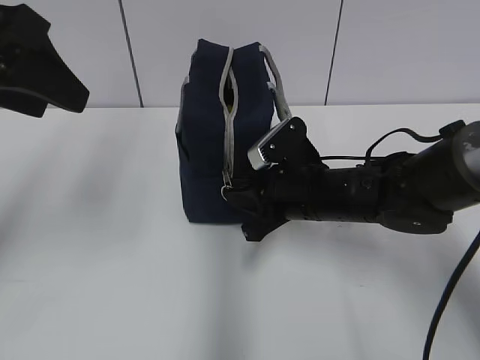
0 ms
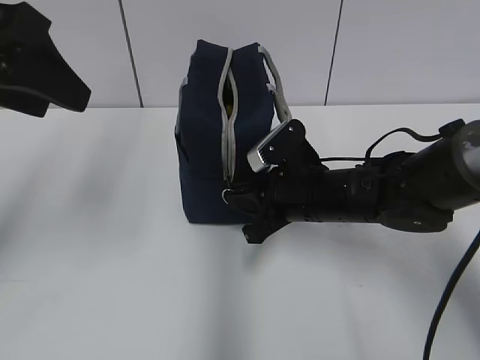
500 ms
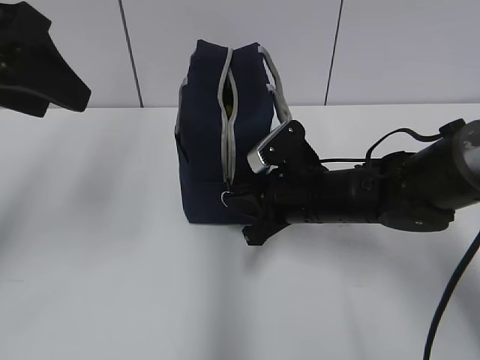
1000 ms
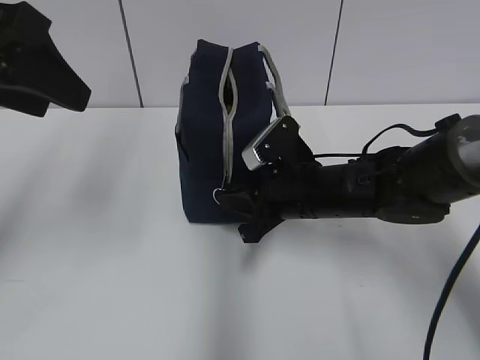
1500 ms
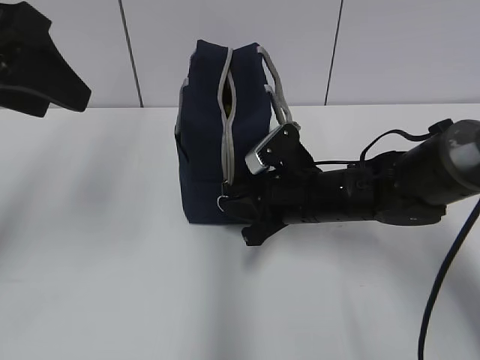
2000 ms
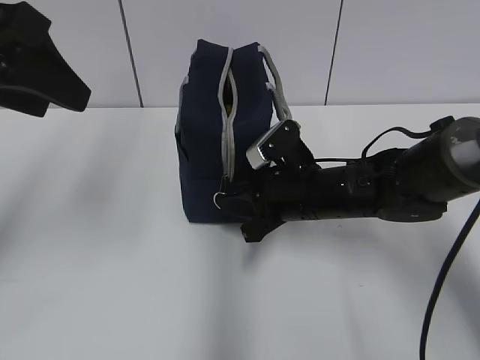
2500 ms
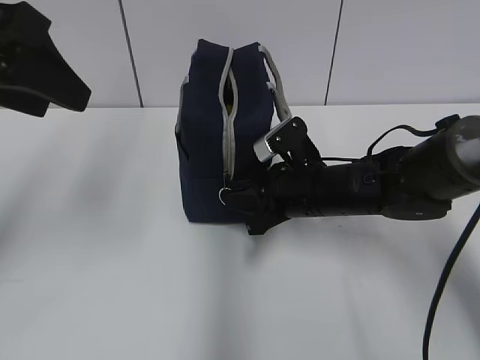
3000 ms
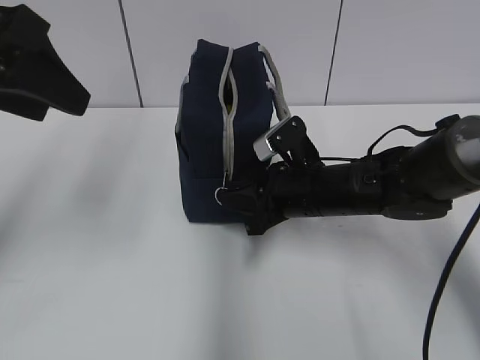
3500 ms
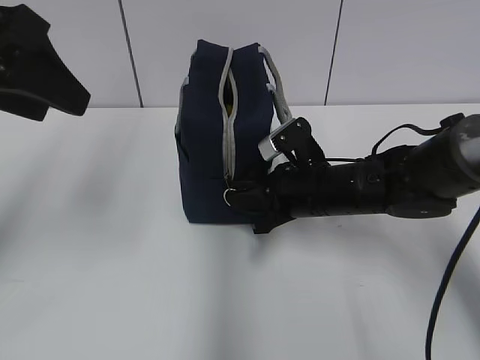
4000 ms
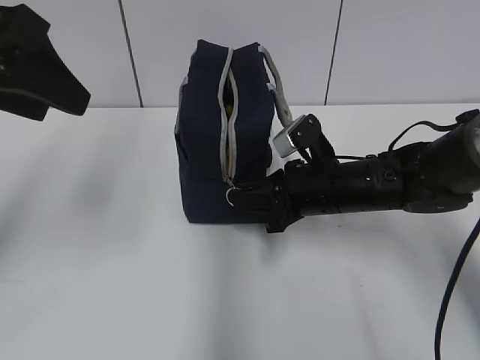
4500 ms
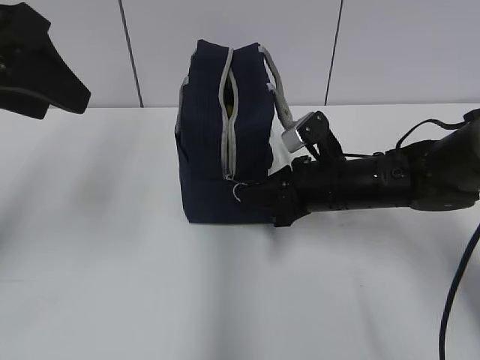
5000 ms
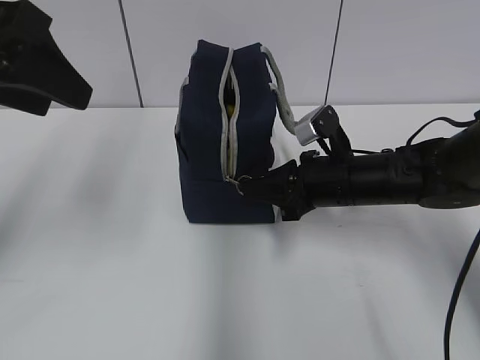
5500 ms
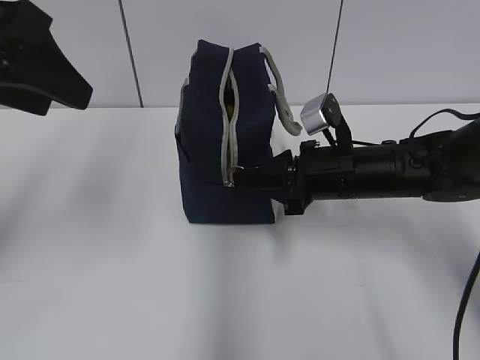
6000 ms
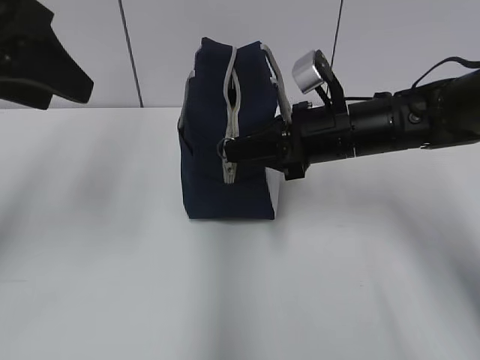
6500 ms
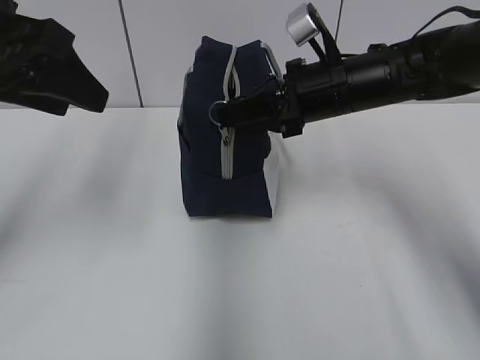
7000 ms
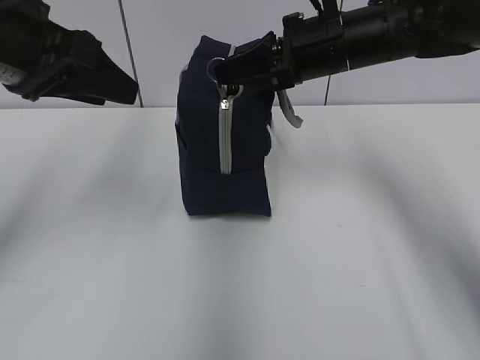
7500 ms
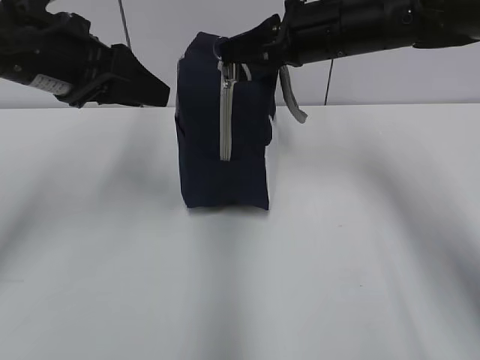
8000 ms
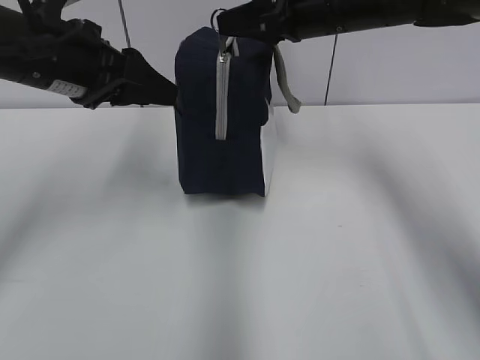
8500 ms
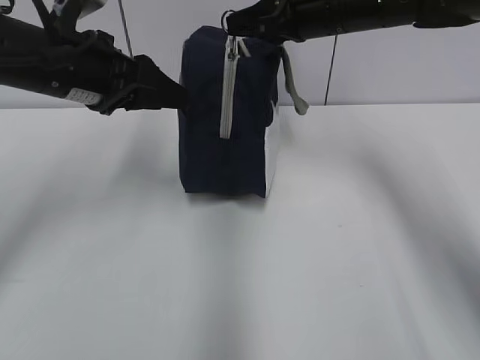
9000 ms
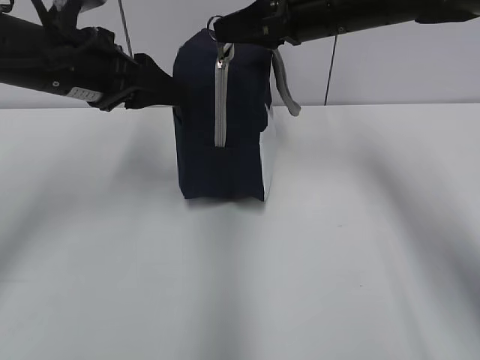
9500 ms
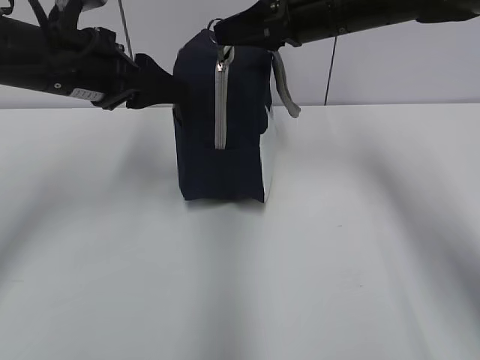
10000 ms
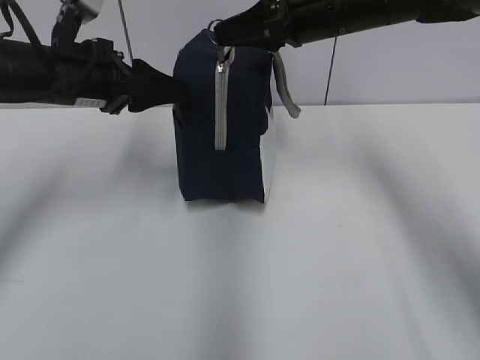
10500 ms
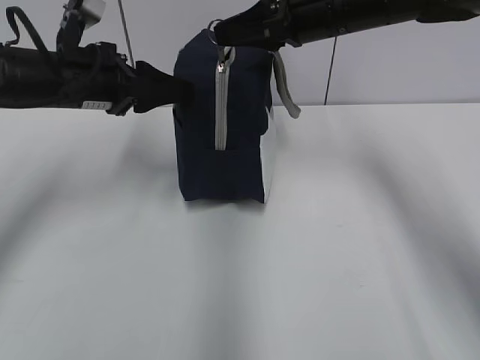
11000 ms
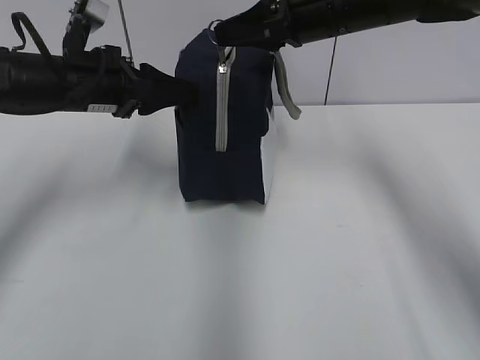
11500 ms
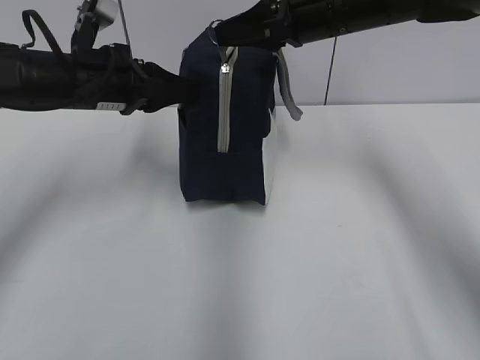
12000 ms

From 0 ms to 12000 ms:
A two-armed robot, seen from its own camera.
From 0 ms to 4000 ms: The grippers stay close to where they were, moving slightly.
From 4000 ms to 6000 ms: The grippers move only a little.
From 6000 ms to 8000 ms: The left gripper moves forward and downward, about 10 cm. The right gripper shifts about 15 cm upward and forward.
From 8000 ms to 10000 ms: The grippers stay close to where they were, moving slightly.
From 10000 ms to 12000 ms: The left gripper closes.

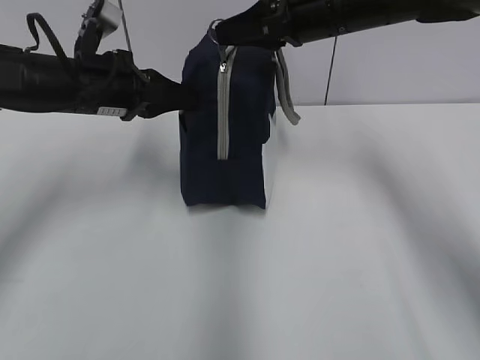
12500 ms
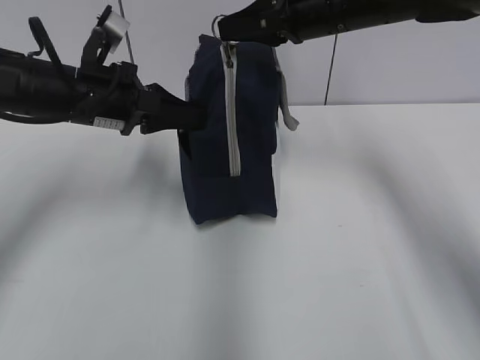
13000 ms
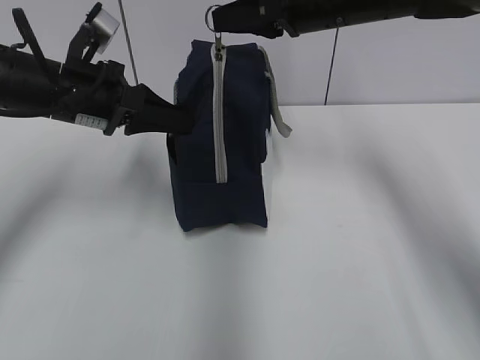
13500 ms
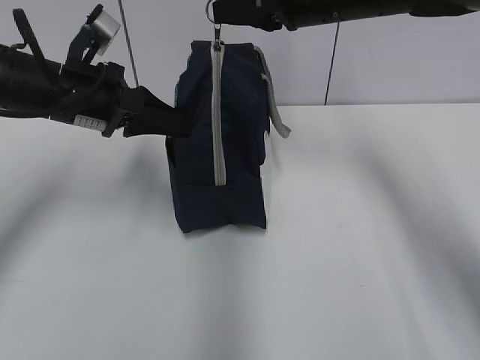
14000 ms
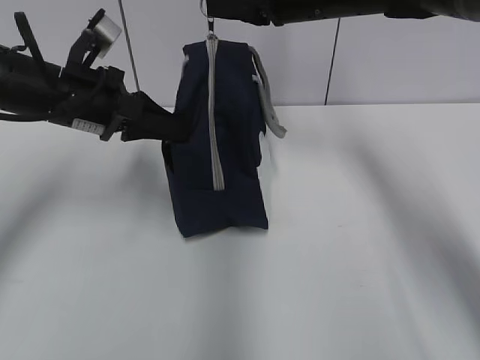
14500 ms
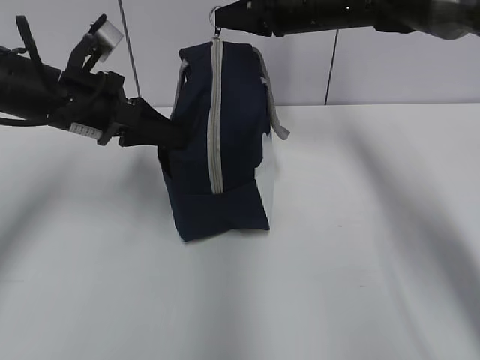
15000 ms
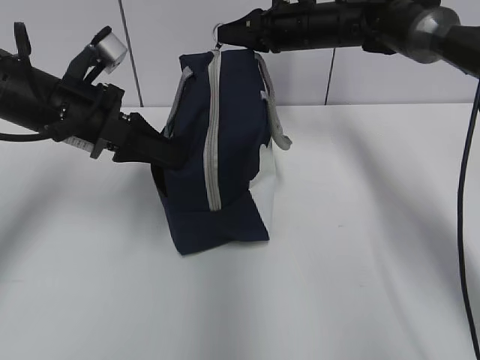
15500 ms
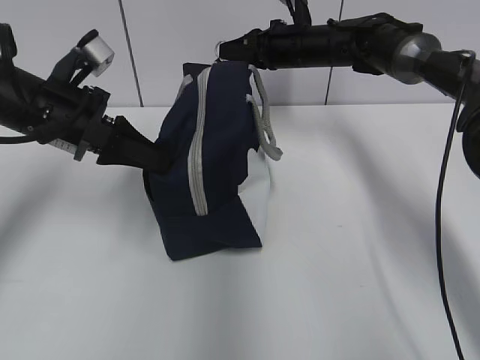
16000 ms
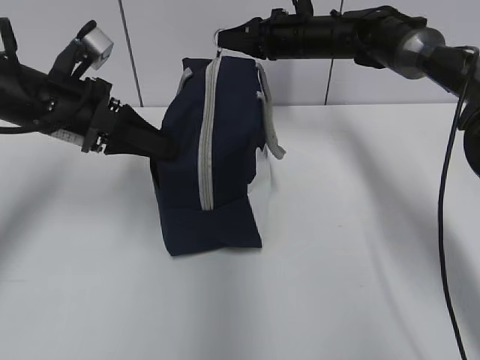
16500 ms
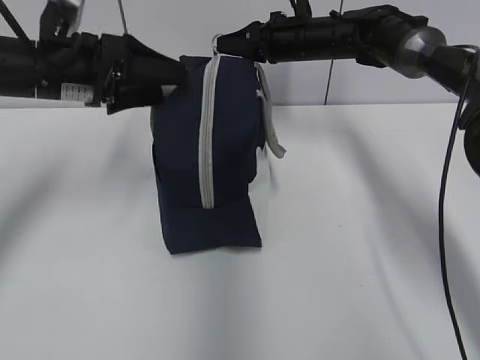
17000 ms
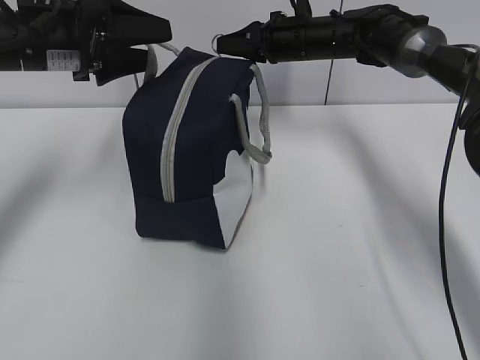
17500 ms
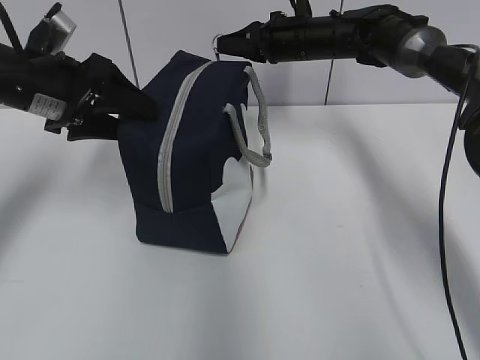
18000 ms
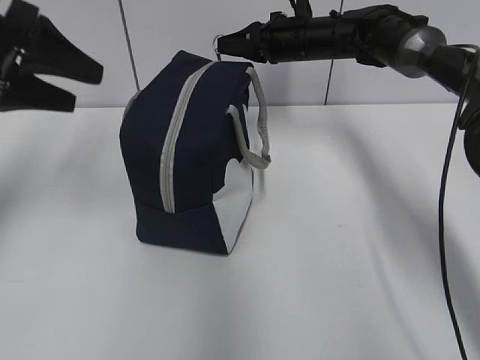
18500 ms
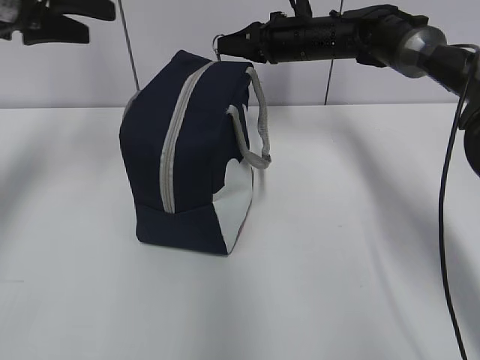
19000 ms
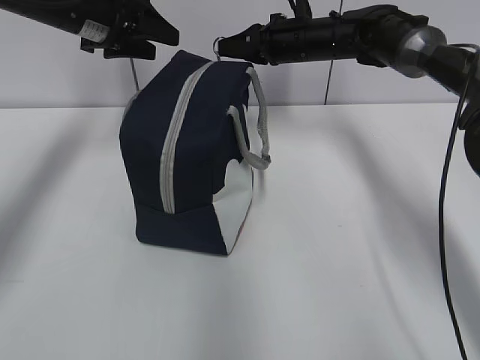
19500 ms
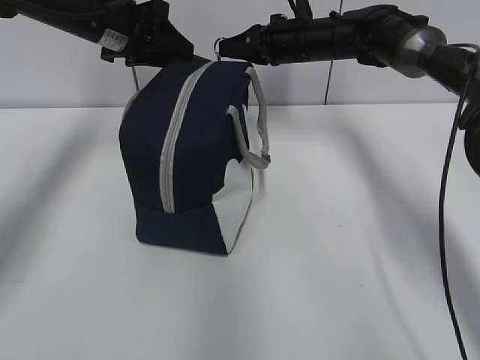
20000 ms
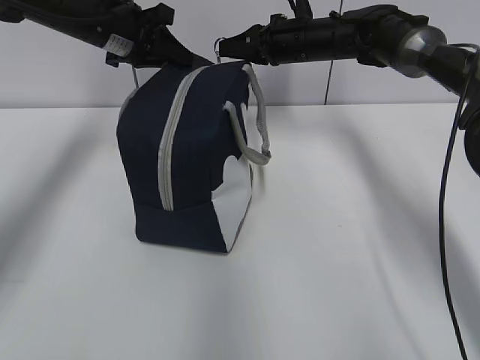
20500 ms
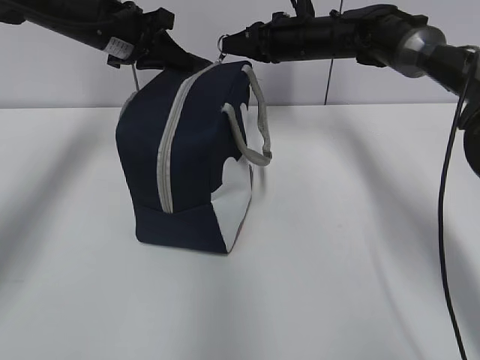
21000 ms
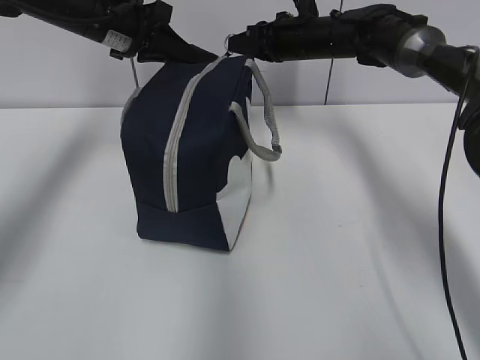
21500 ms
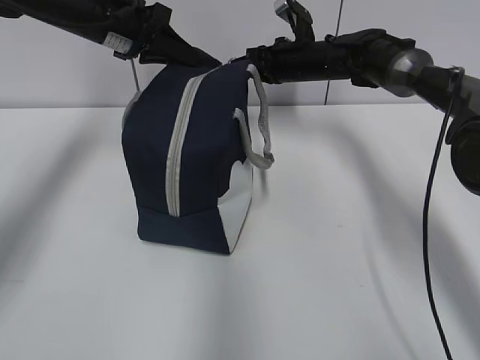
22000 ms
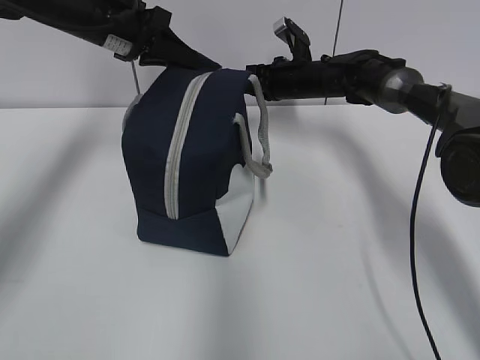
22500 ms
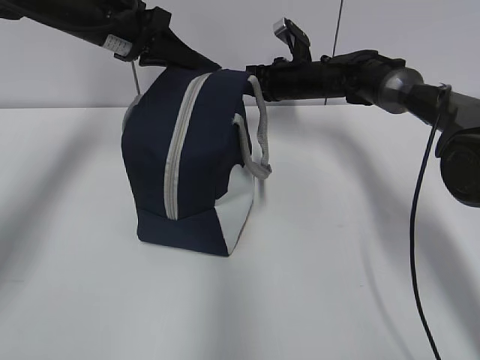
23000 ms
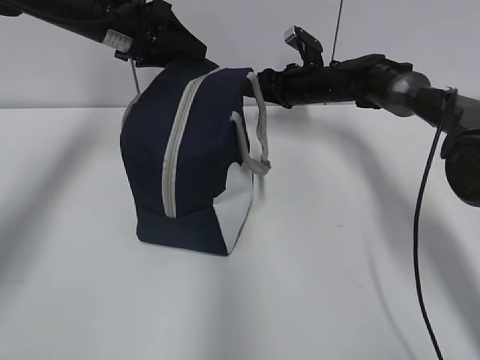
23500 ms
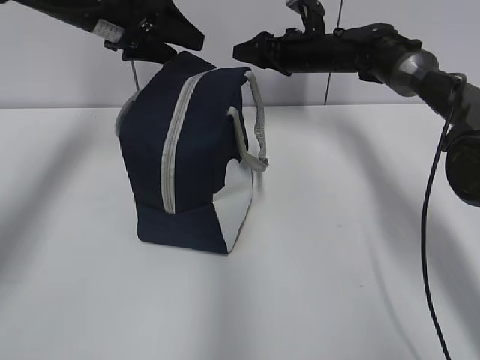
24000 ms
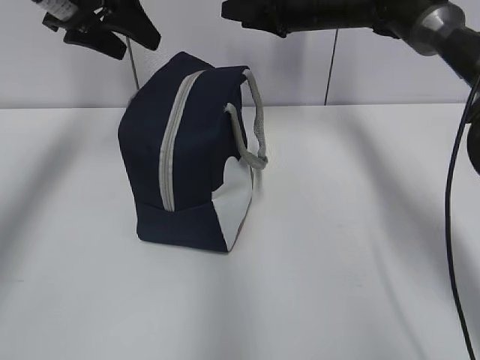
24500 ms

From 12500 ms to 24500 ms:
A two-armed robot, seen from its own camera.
Step, from 12500 ms to 16000 ms: Move the lunch bag to the left.
Step, from 17000 ms to 23000 ms: Pull the zipper with your right hand.
From 12500 ms to 14500 ms: The grippers stay close to where they were, moving slightly.
From 14500 ms to 16500 ms: The right gripper moves downward and forward, about 10 cm.
From 16500 ms to 18500 ms: The left gripper travels upward and to the left by roughly 10 cm, and opens up.
From 18500 ms to 20500 ms: The left gripper goes roughly 20 cm forward and to the right, and closes.
From 20500 ms to 22500 ms: The right gripper goes some 5 cm downward.
From 22500 ms to 24500 ms: The right gripper shifts approximately 10 cm upward, and opens its fingers, while the left gripper moves upward, about 5 cm, and opens its fingers.

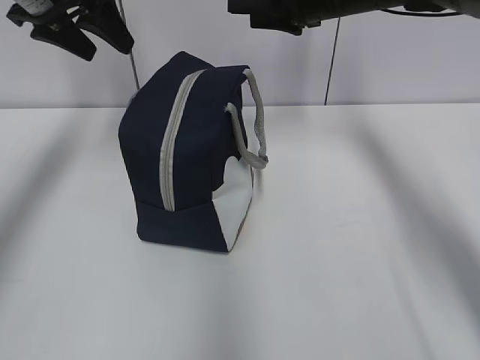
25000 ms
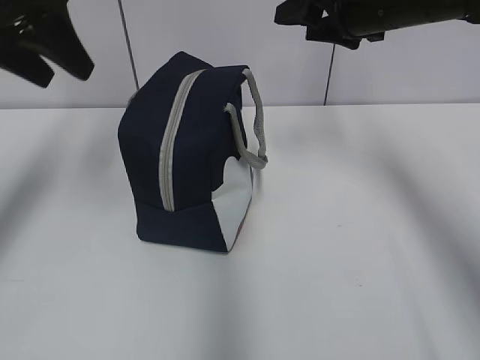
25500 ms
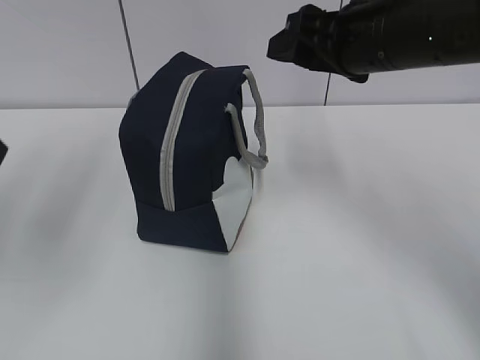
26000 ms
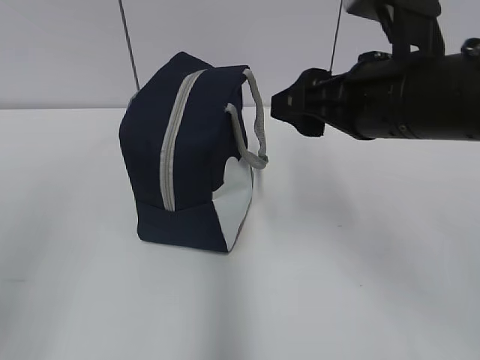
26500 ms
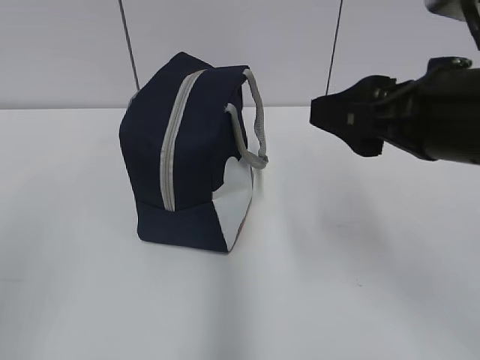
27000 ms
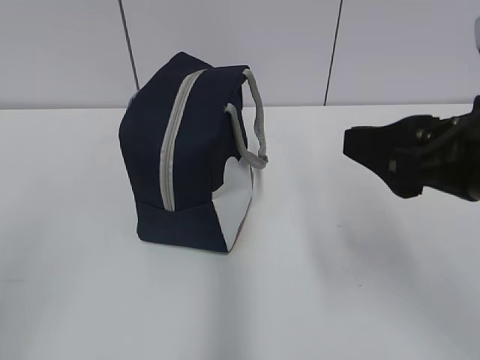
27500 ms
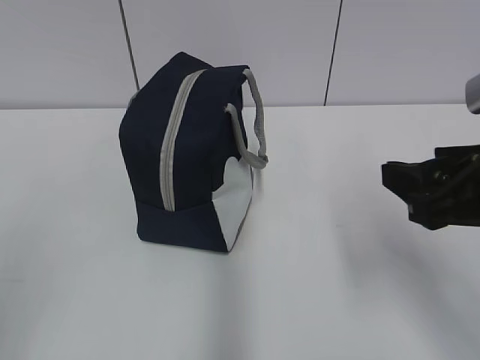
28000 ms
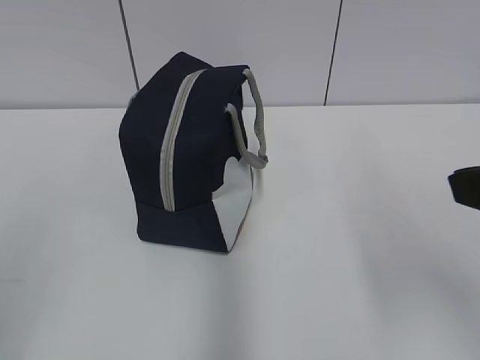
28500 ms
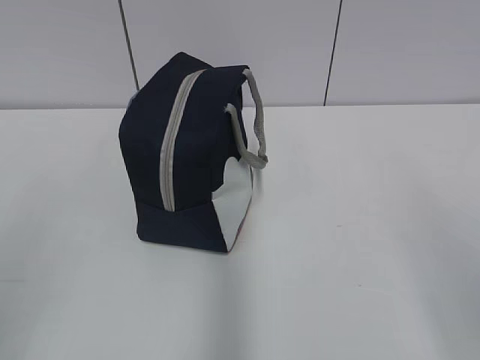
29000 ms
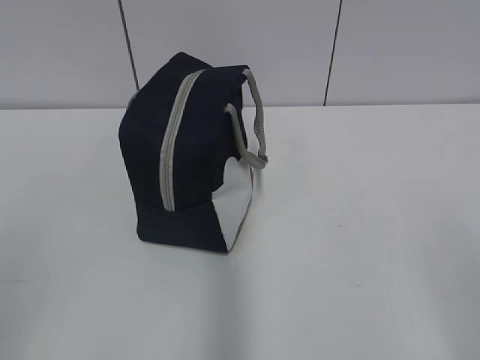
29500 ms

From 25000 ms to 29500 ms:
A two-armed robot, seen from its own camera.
From 25000 ms to 27000 ms: The grippers both shift backward by about 35 cm.
From 27000 ms to 29500 ms: The right gripper is displaced backward and to the right by approximately 20 cm.
